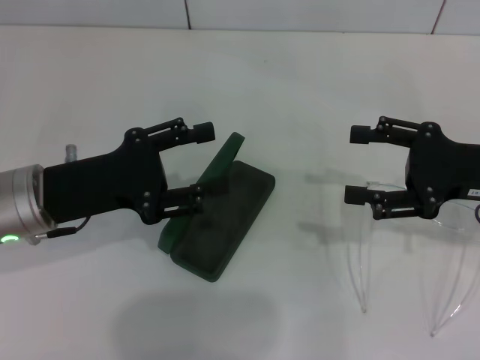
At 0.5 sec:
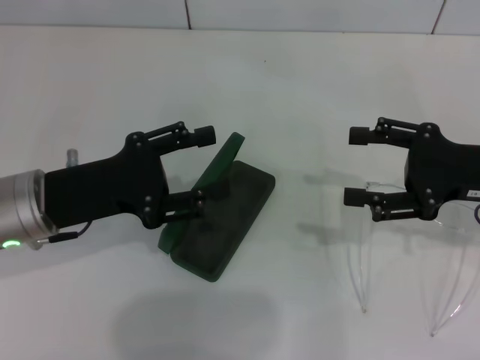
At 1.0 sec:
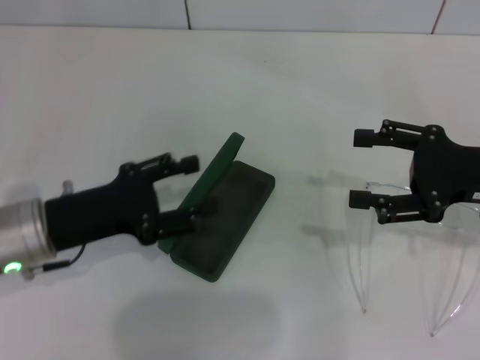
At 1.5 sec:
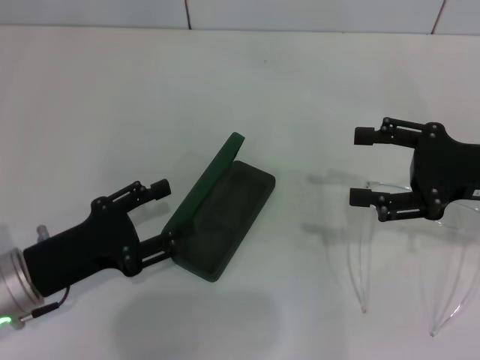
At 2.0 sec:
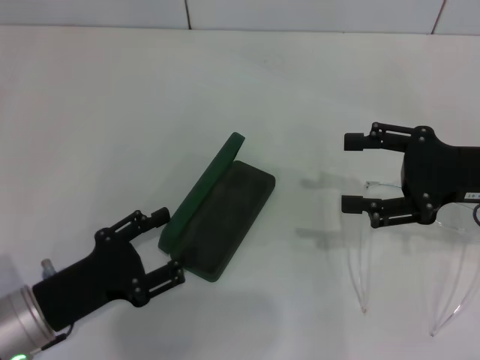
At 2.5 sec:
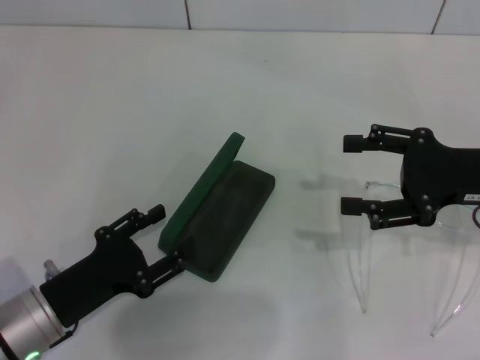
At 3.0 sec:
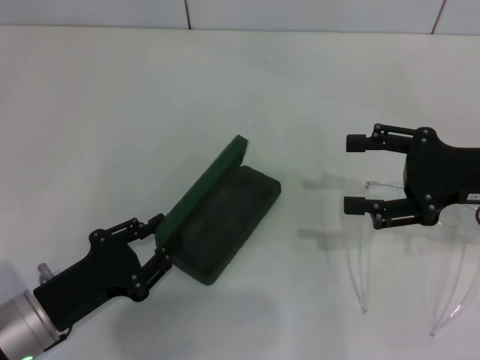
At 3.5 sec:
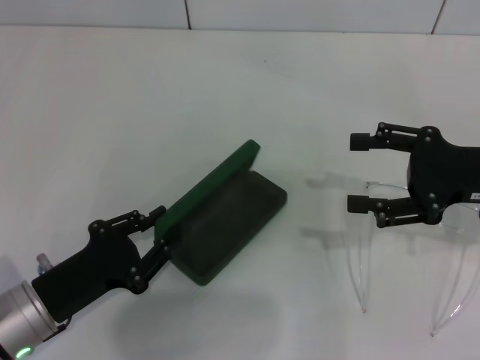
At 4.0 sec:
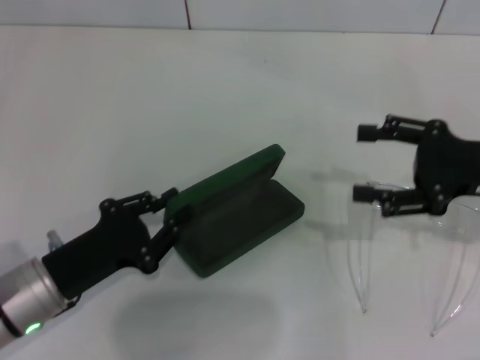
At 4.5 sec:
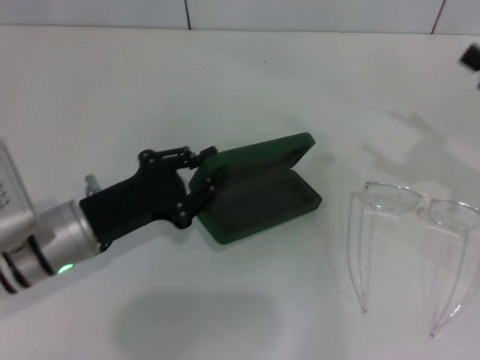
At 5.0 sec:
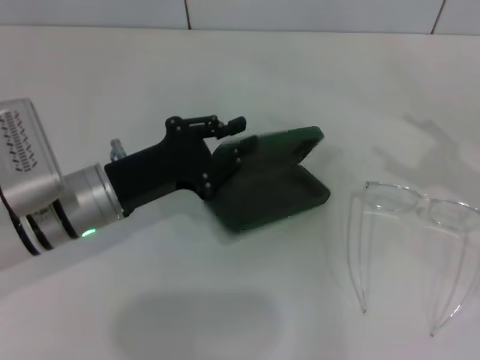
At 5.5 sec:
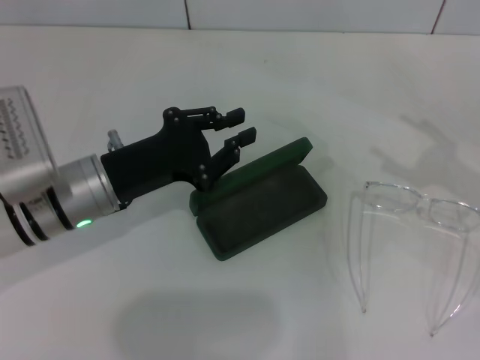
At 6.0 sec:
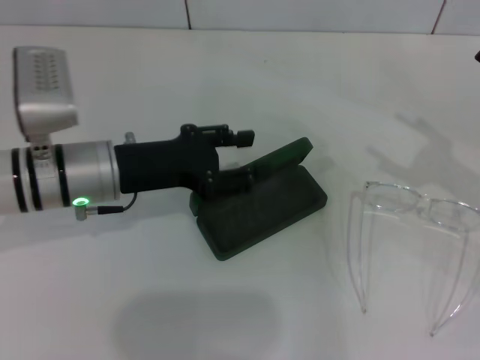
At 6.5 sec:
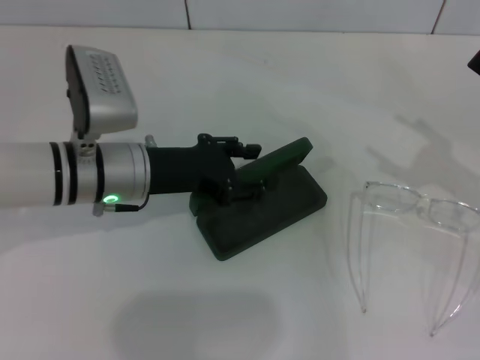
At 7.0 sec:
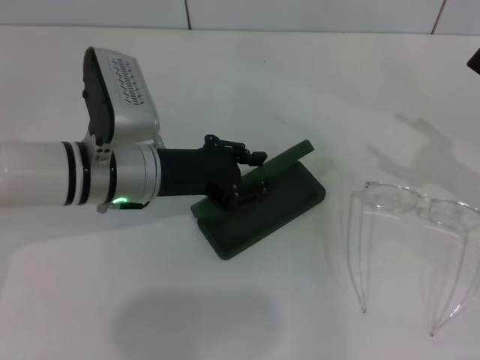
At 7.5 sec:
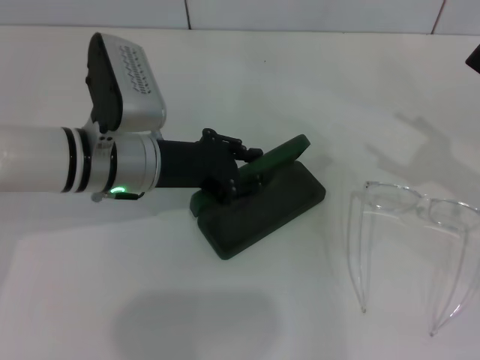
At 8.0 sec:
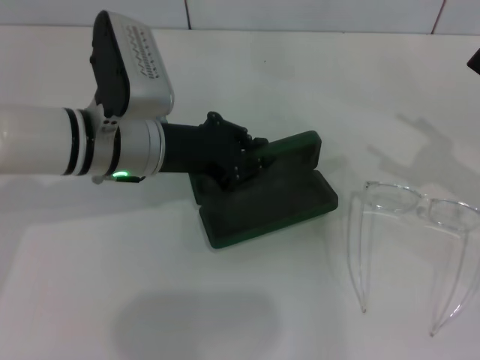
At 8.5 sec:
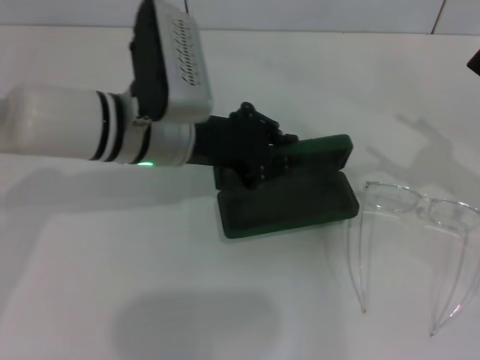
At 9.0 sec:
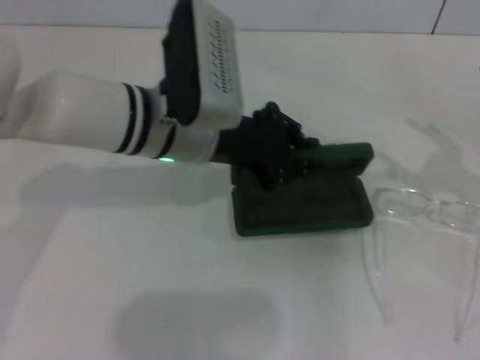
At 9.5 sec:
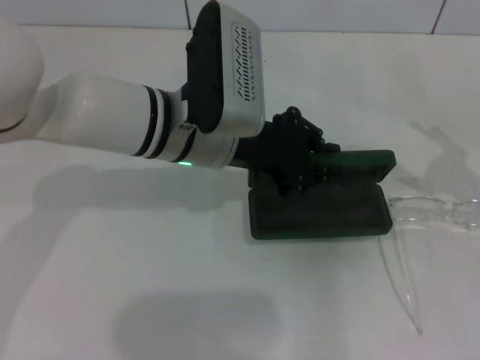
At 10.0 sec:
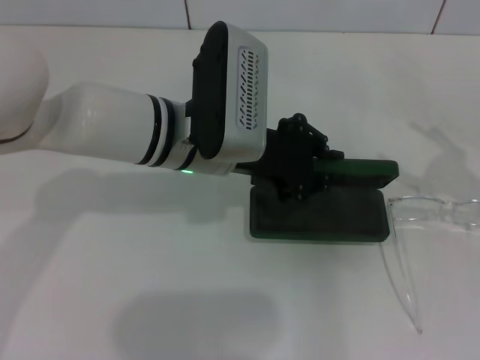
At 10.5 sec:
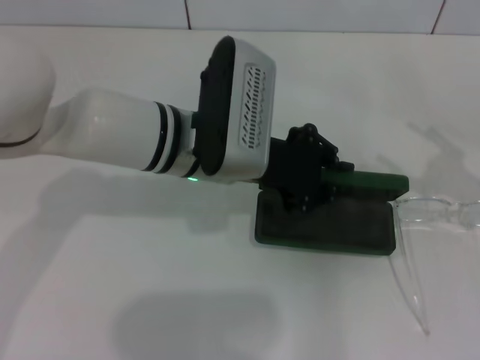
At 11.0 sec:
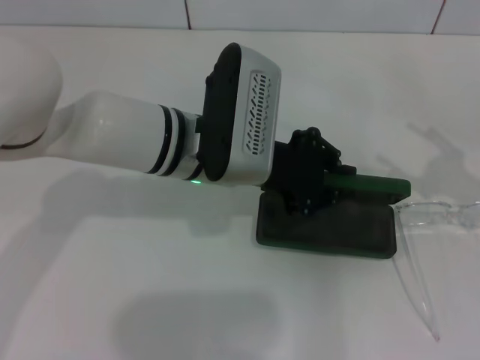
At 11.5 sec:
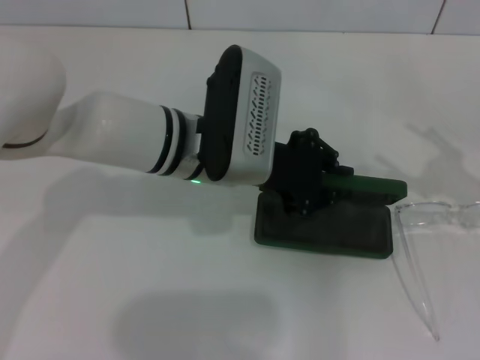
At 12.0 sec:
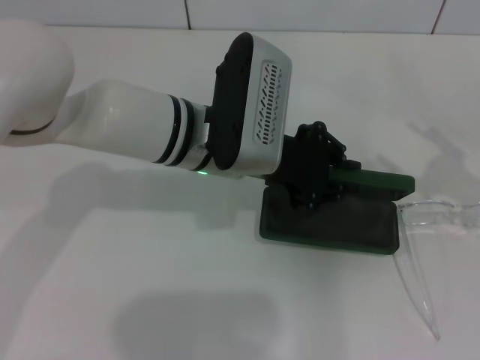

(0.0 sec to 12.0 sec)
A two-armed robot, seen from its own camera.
Step, 0.0 sec - 3.0 sec: Grab the glasses case with your left hand.
0.0 sec - 2.0 sec: The left gripper is displaced backward and downward by some 10 cm.
2.0 sec - 4.0 sec: The left gripper closes.
4.0 sec - 6.0 sec: The left gripper goes about 15 cm forward, upward and to the right; the right gripper goes approximately 5 cm to the right.
6.0 sec - 8.0 sec: The left gripper ends up roughly 5 cm from where it was, and opens and closes again.
8.0 sec - 10.0 sec: The left gripper heads to the right, covering about 5 cm.
10.0 sec - 12.0 sec: The grippers stay close to where they were, moving slightly.

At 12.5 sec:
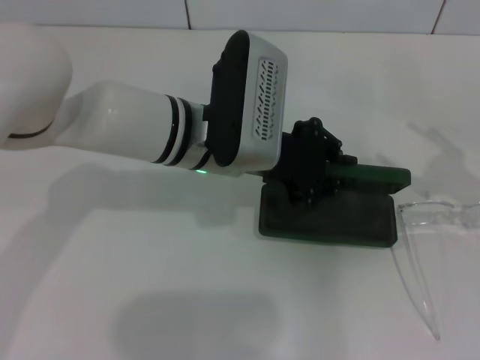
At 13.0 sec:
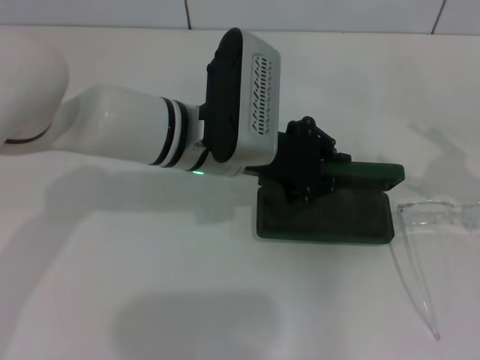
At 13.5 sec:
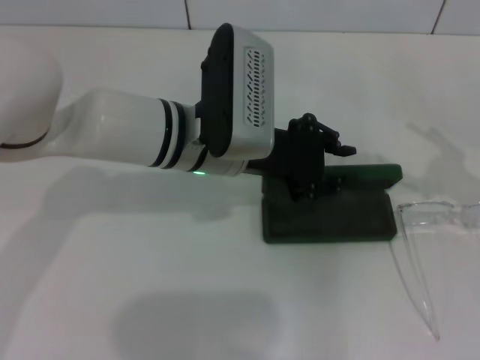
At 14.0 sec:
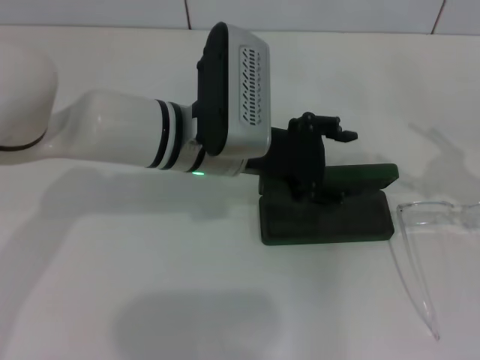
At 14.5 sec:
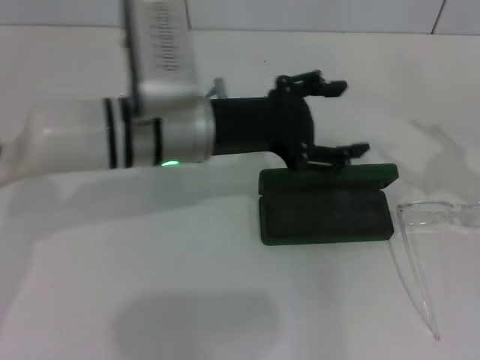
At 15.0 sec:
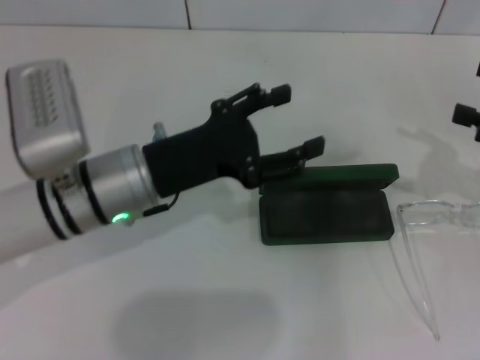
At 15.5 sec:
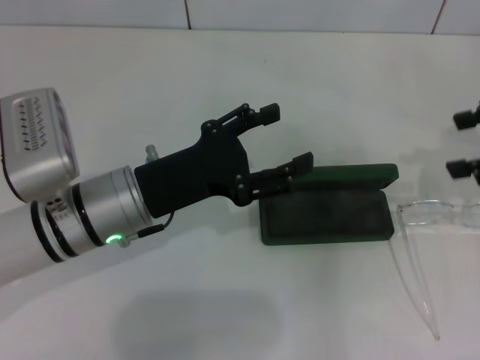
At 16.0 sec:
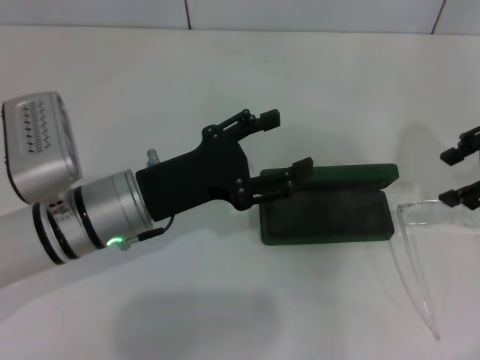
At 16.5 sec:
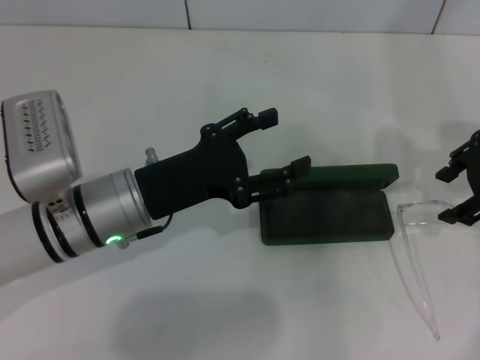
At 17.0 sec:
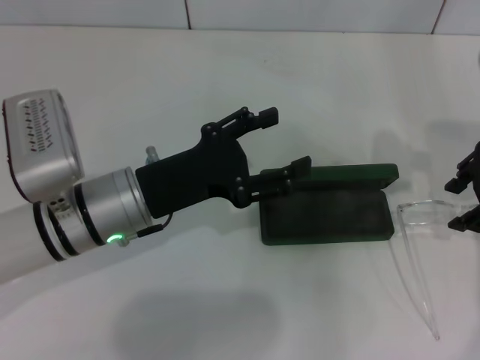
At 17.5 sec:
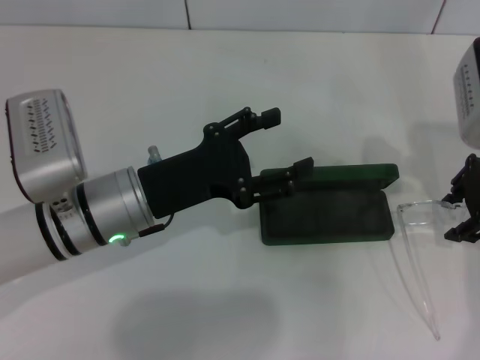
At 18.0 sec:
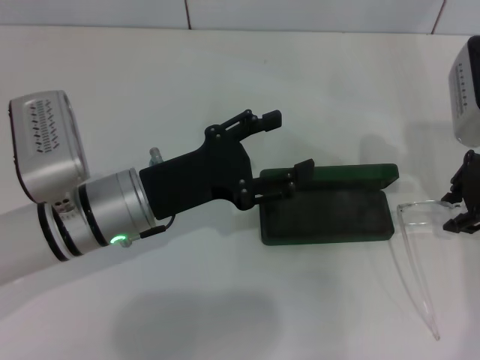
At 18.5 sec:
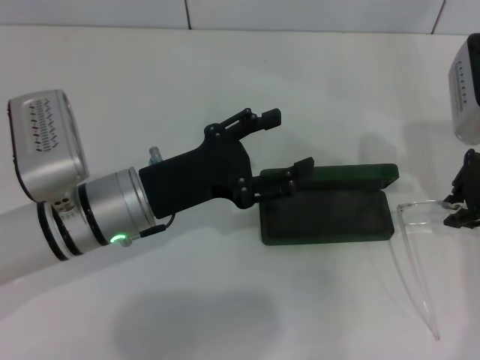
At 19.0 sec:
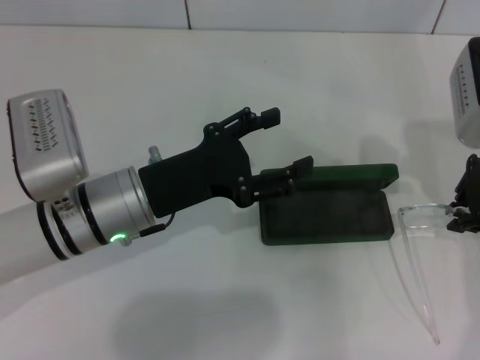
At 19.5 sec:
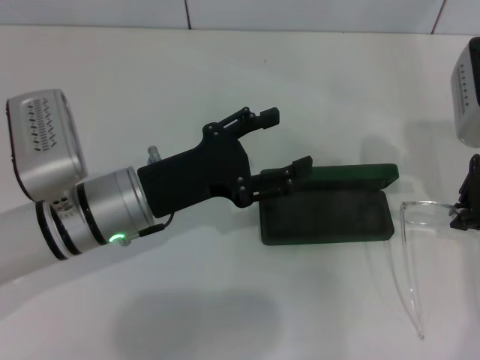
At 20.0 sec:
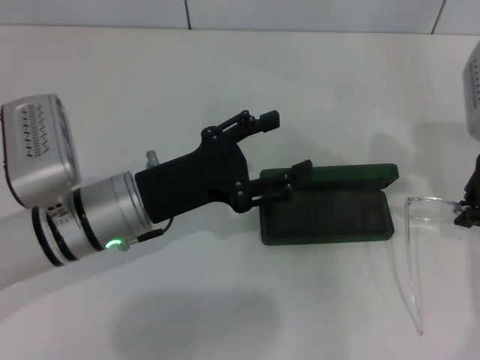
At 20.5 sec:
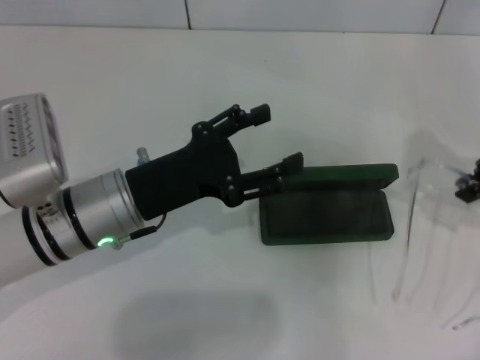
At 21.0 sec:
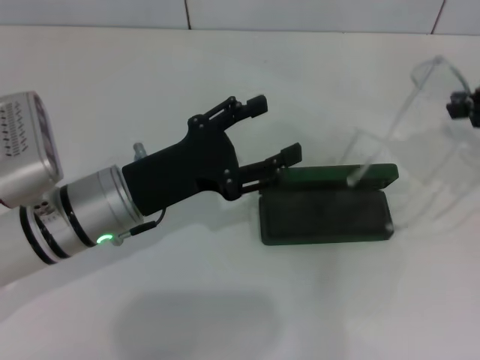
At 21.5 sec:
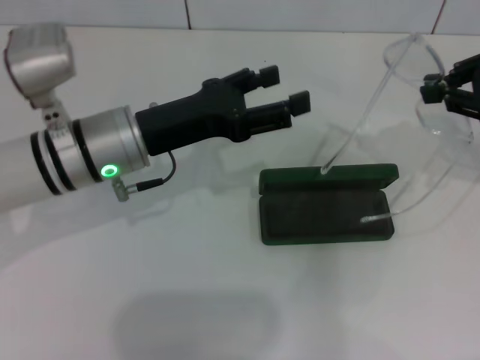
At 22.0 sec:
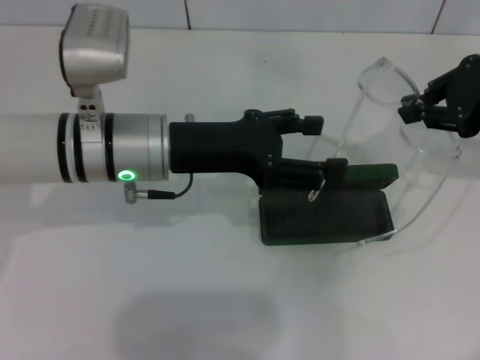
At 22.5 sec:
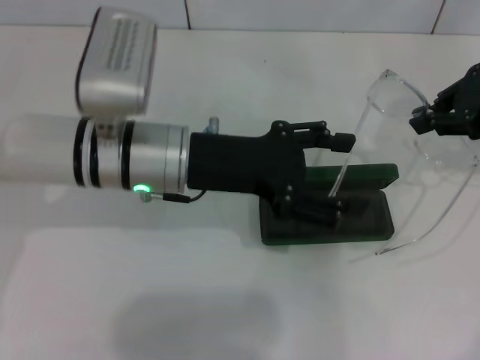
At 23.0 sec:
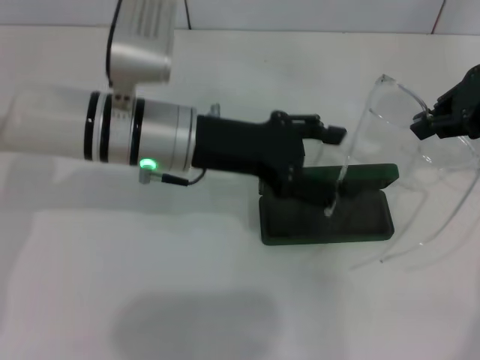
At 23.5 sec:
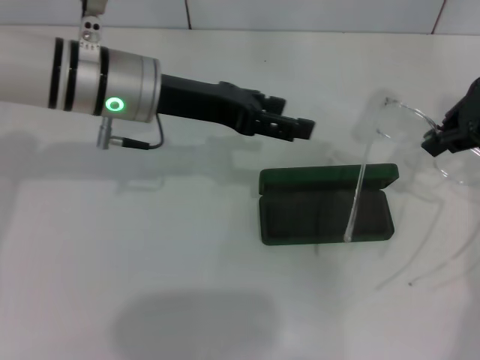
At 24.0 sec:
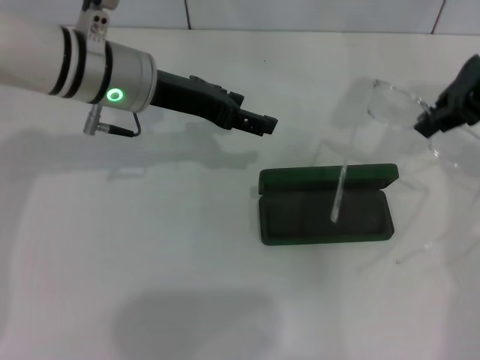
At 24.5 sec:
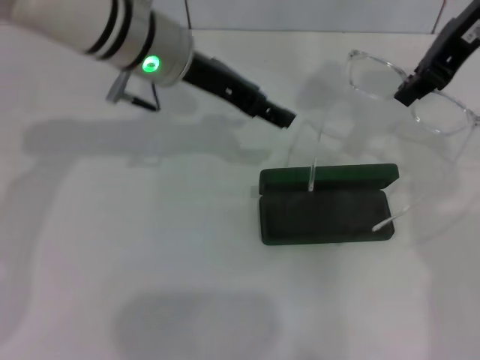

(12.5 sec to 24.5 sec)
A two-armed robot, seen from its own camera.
Step, 14.0 sec - 18.5 sec: Grab the eyeglass frame with your right hand.
12.5 sec - 14.5 sec: The left gripper opens.
14.5 sec - 16.5 sec: The left gripper goes roughly 10 cm downward, to the left and backward. Meanwhile the right gripper is displaced forward, to the left and upward by about 15 cm.
16.5 sec - 18.5 sec: The right gripper closes up.
18.5 sec - 20.5 sec: The right gripper heads to the right, covering some 5 cm.
20.5 sec - 22.5 sec: The left gripper goes about 5 cm upward.
22.5 sec - 24.5 sec: The left gripper travels forward and upward by approximately 10 cm, while the right gripper is displaced to the left and upward by roughly 10 cm.

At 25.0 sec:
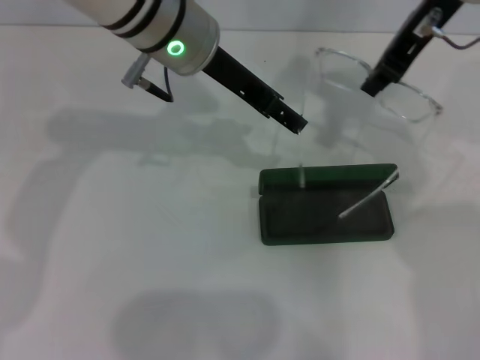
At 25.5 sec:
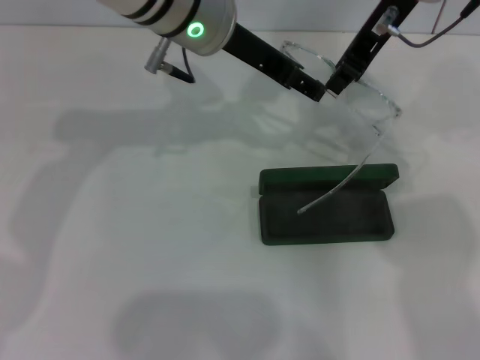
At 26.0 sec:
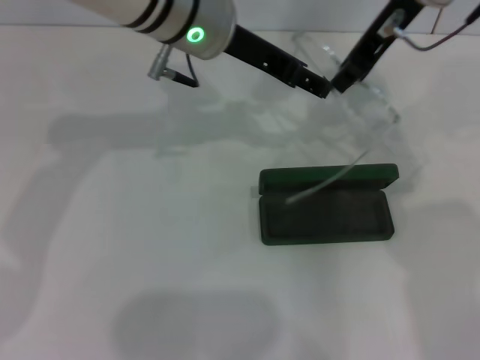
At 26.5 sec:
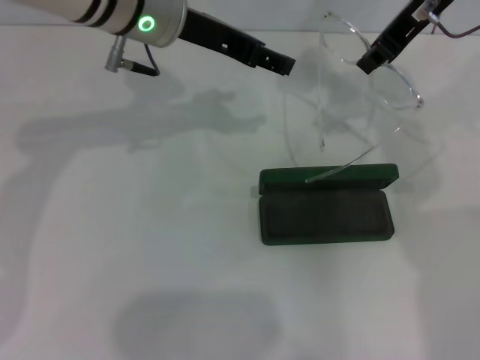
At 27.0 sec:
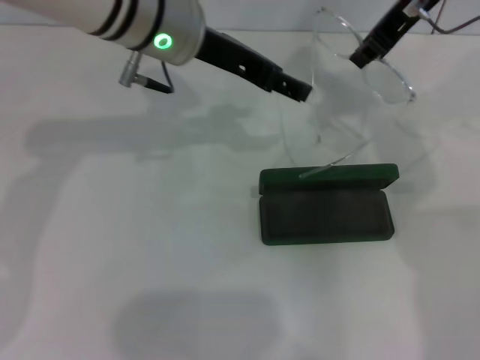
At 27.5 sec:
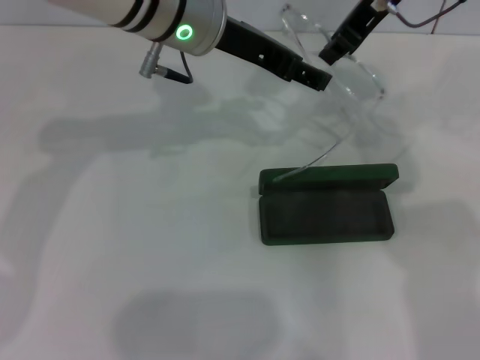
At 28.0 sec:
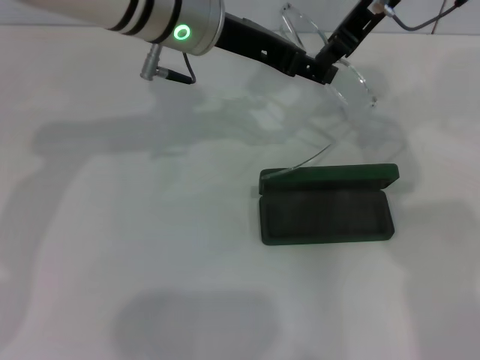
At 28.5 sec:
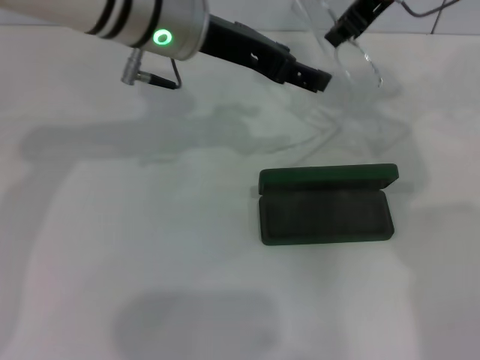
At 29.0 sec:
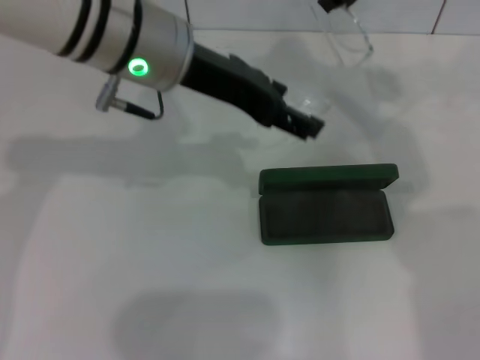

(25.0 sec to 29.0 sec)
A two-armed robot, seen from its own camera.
25.0 sec - 29.0 sec: There are only small adjustments of the grippers.
